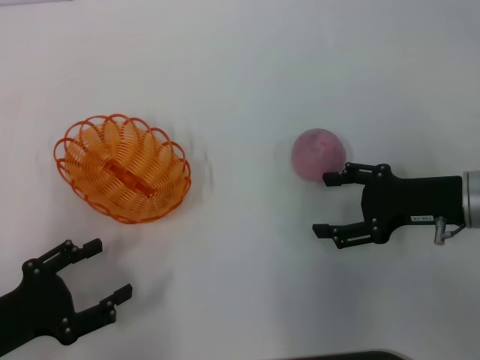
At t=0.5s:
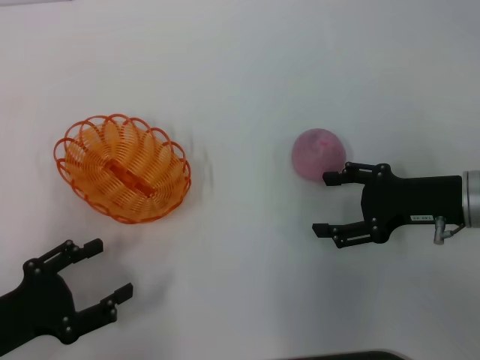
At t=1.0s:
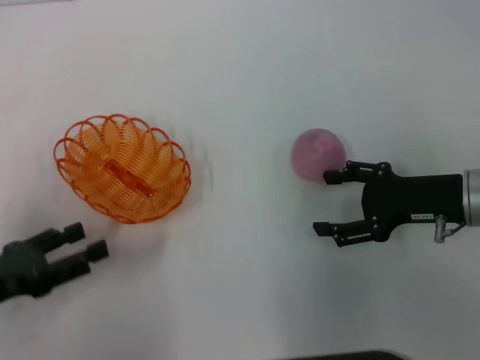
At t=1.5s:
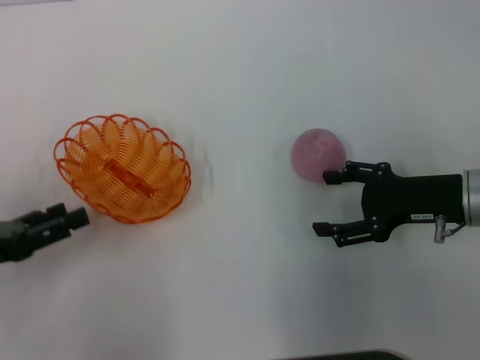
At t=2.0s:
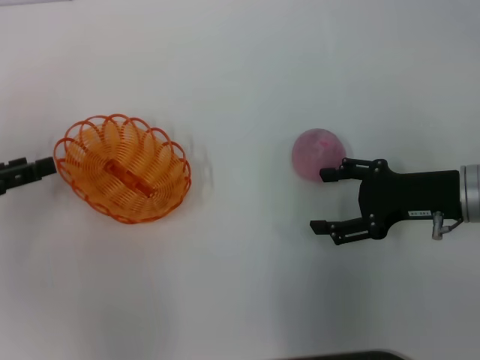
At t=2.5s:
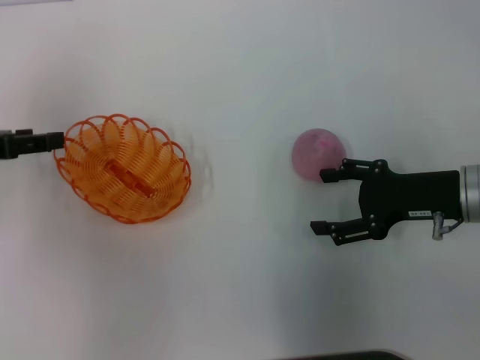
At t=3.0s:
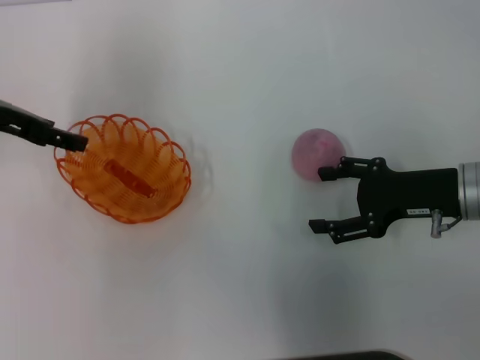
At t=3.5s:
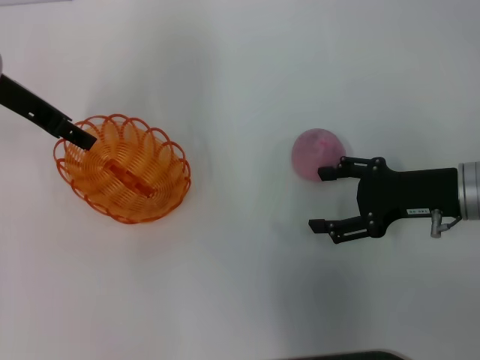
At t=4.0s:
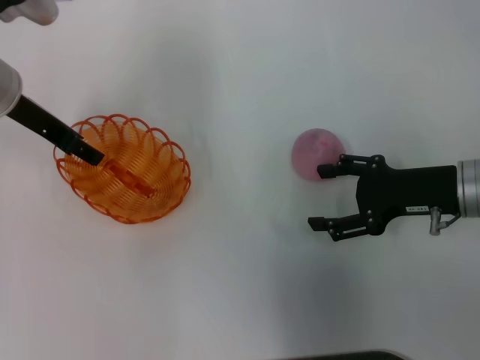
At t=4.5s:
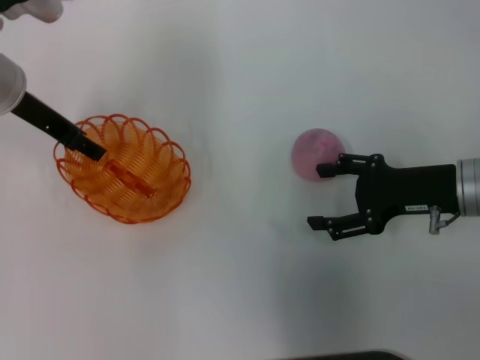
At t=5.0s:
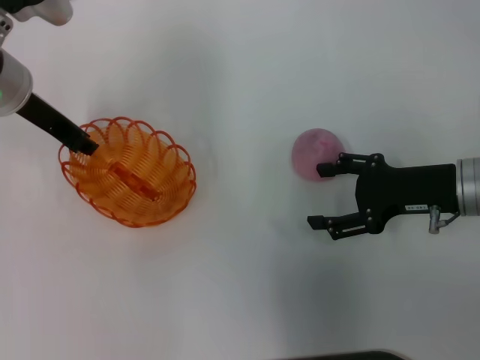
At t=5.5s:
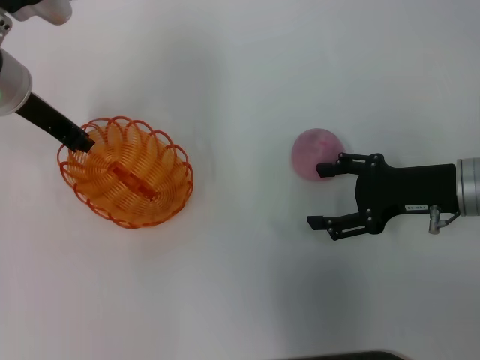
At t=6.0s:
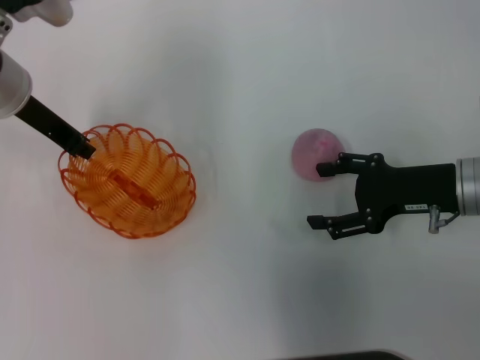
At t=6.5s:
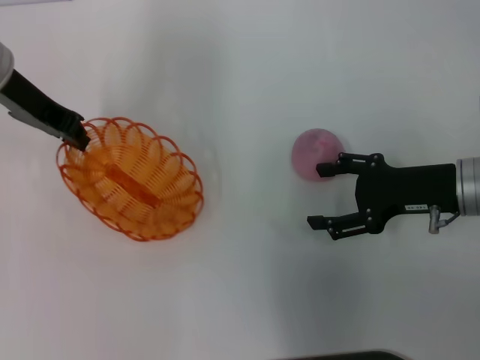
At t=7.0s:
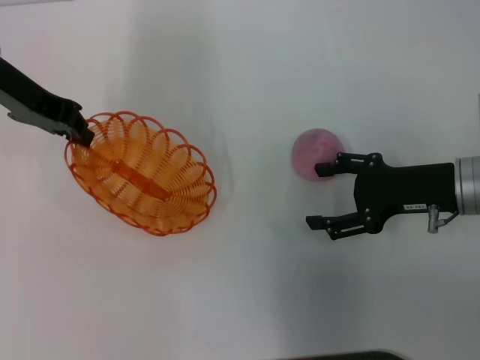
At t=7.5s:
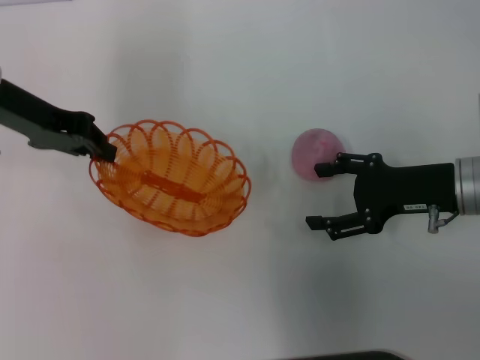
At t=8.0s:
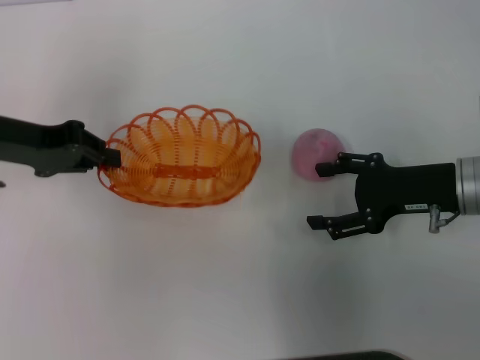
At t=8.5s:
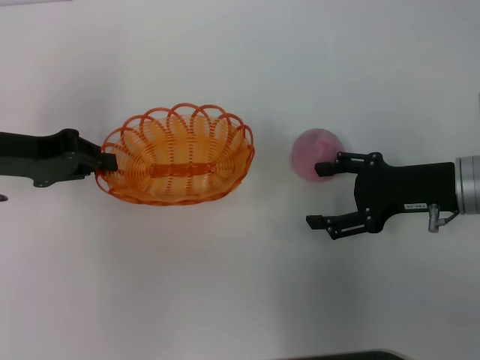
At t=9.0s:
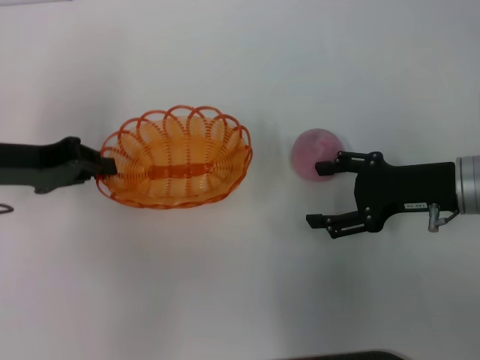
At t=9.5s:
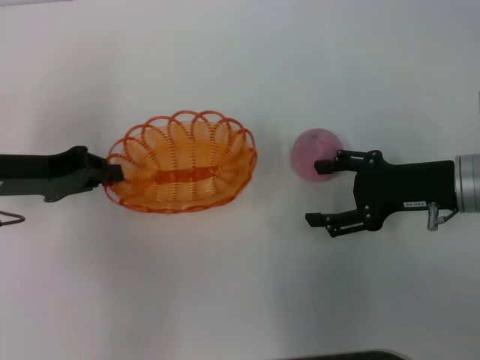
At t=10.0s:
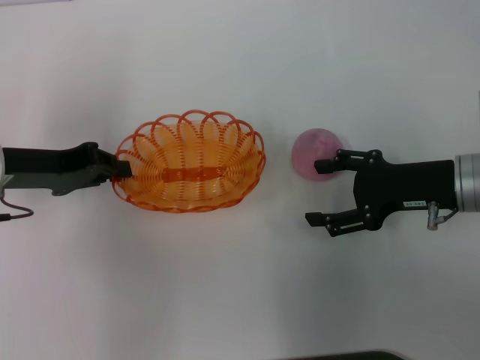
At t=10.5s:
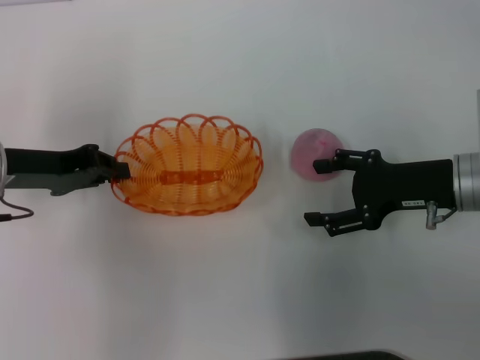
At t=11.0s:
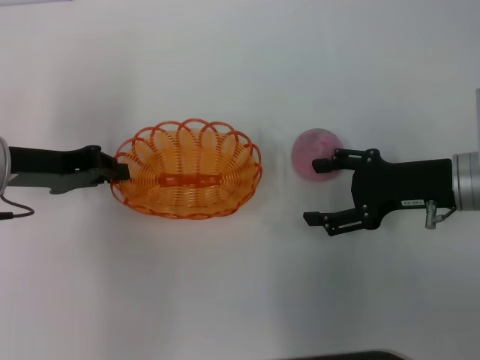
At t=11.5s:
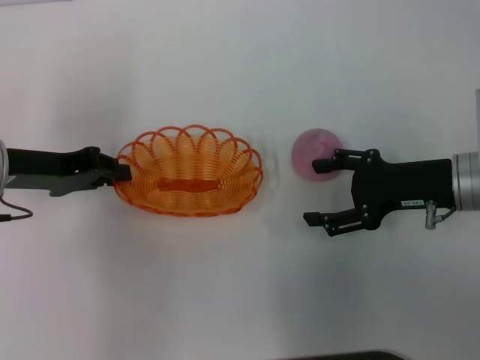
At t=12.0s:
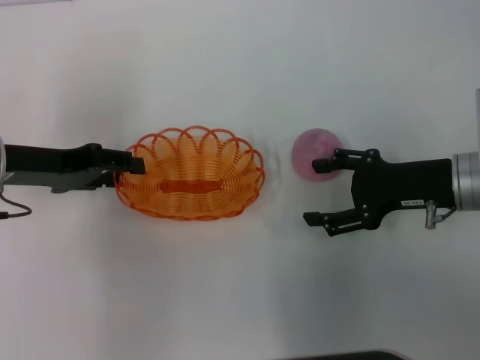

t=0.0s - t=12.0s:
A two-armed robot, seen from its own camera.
Step, t=0.0s - t=7.0s: Pick up the basket with the left gripper.
t=0.0s - t=2.0s: The left gripper travels forward, upward and to the left by some 15 cm.
t=2.0s - t=4.0s: The left gripper heads forward, to the right and upward, covering some 20 cm.
t=4.0s - t=6.0s: The left gripper closes.
t=6.0s - t=8.0s: The left gripper travels to the left by roughly 5 cm.
t=8.0s - t=10.0s: The grippers move only a little.
t=10.0s - t=12.0s: Both grippers stay about where they are.

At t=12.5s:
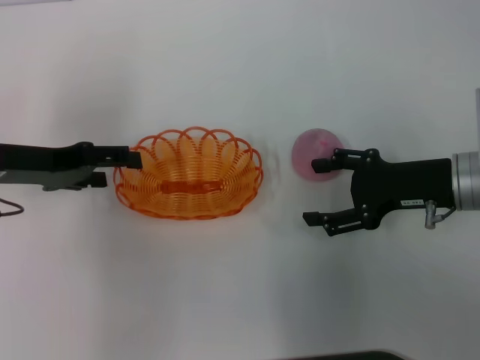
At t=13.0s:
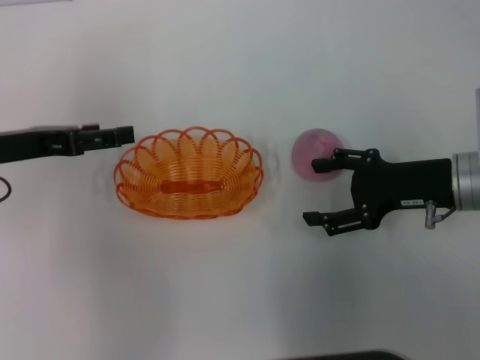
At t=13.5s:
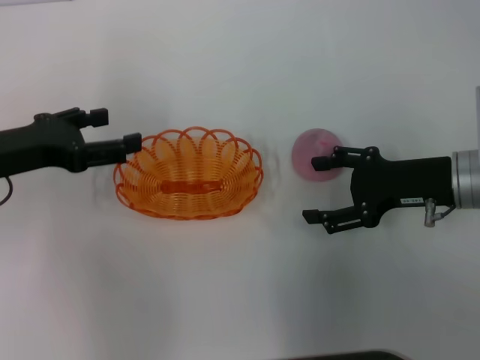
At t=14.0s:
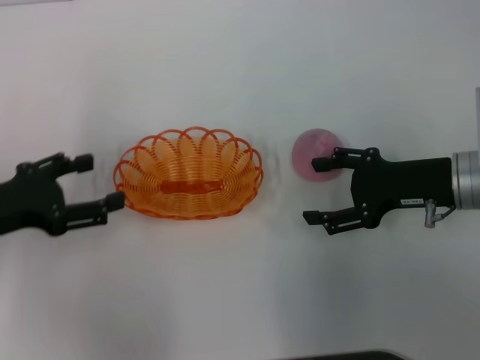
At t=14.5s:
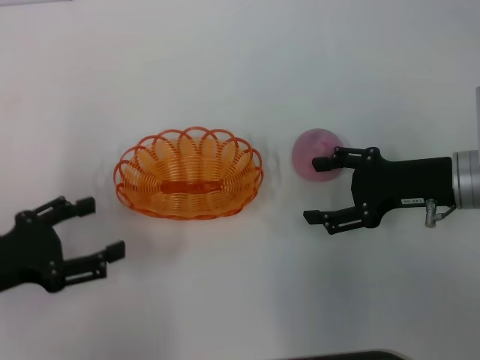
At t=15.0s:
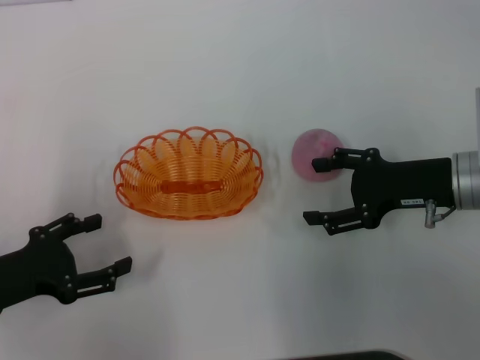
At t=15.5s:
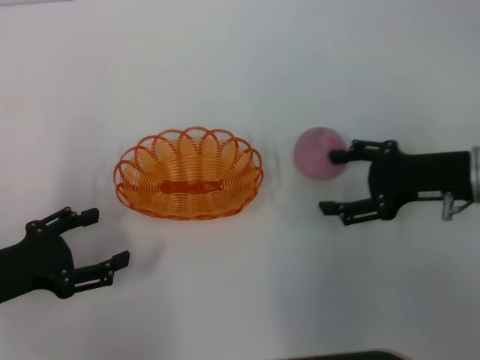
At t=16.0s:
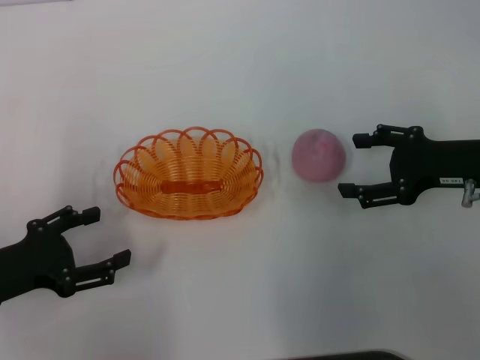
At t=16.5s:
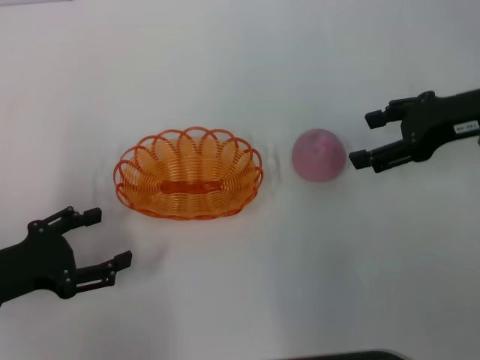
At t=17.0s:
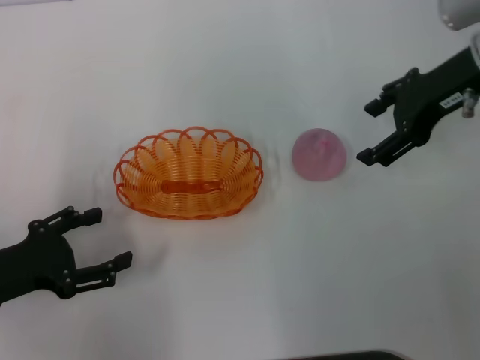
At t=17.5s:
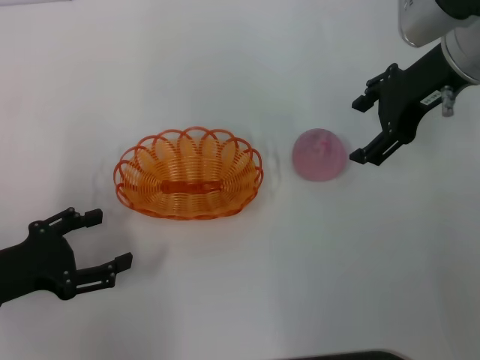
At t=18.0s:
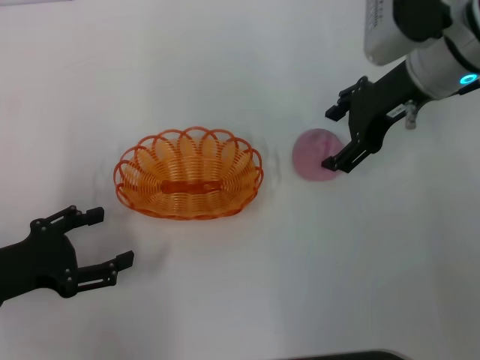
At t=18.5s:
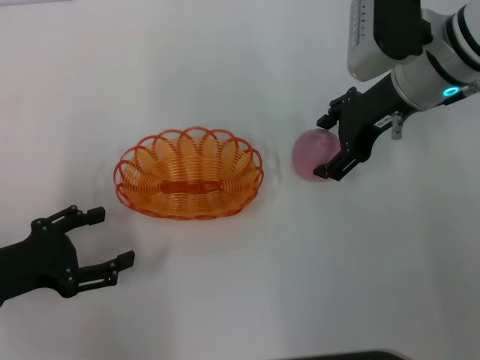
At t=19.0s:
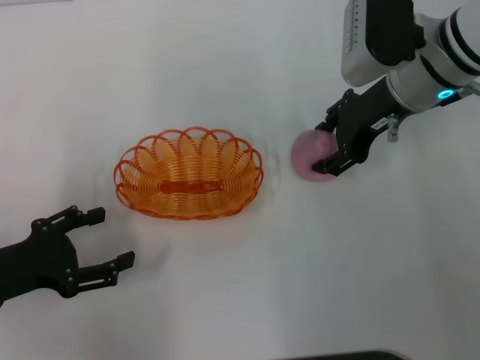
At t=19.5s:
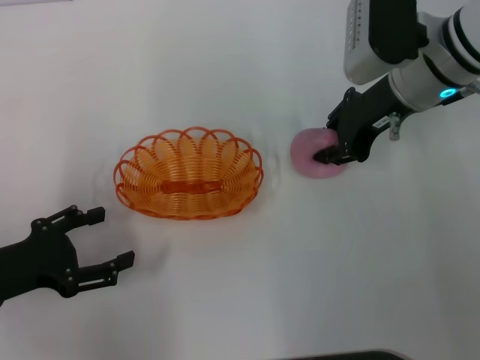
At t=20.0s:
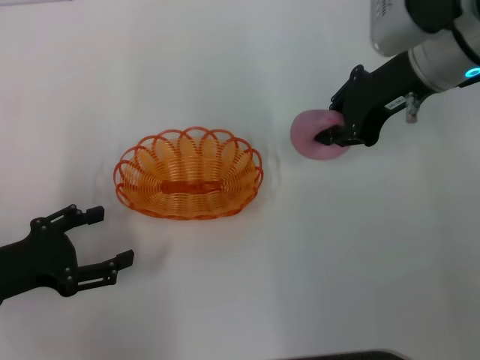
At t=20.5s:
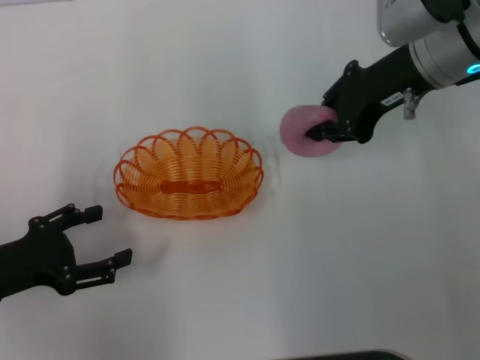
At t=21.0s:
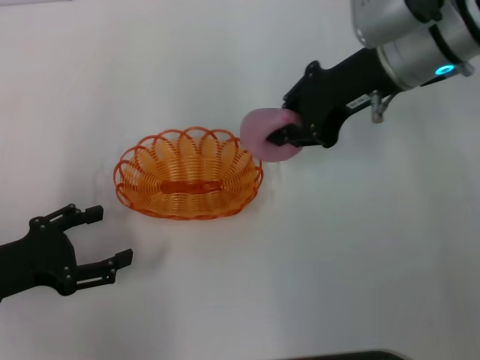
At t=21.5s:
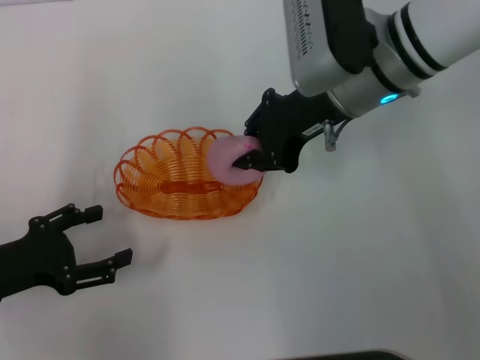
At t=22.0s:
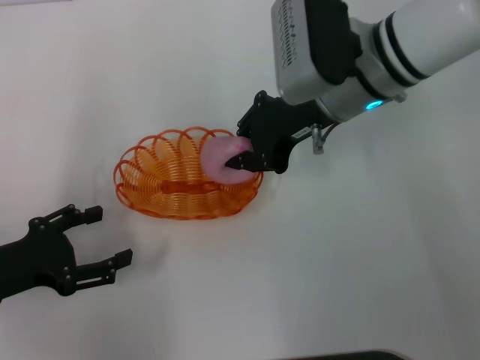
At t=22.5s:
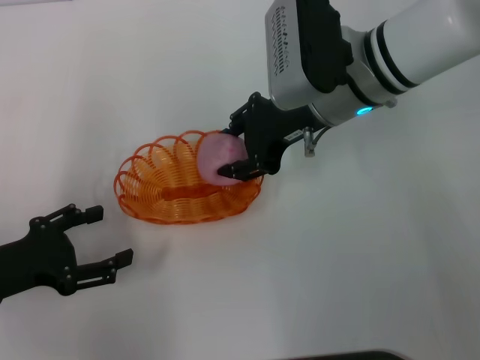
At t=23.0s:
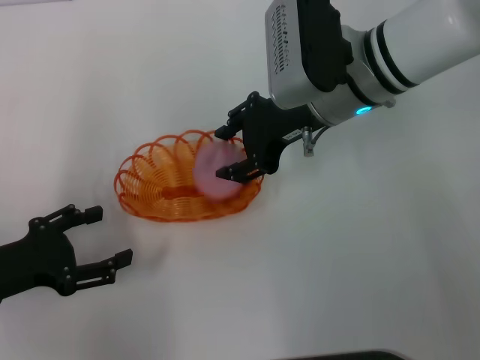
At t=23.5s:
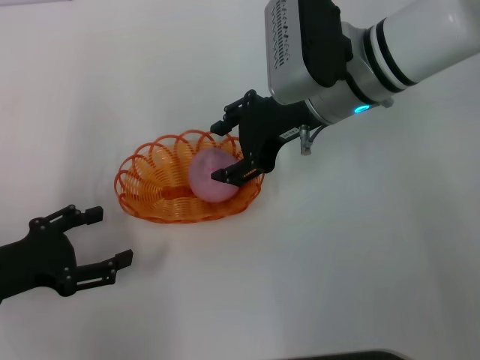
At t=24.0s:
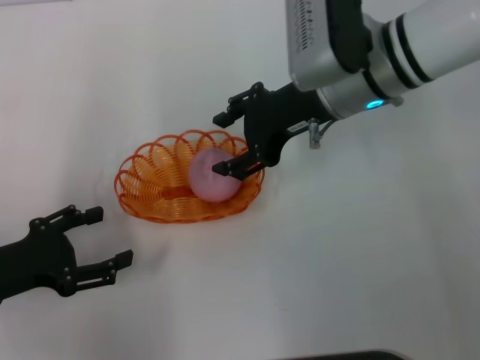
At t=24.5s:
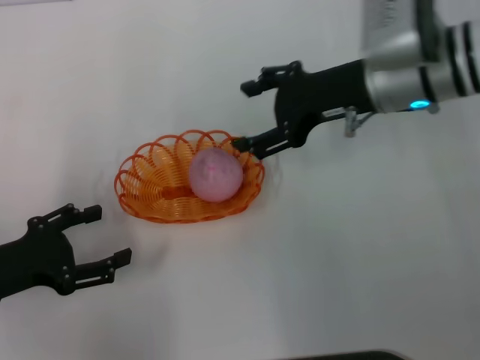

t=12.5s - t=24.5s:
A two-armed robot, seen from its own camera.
Step, t=14.0s - t=20.0s: Pick up the peach with the right gripper.
t=12.5s - t=14.5s: The left gripper heads backward, covering roughly 10 cm.
t=14.5s - t=16.5s: The right gripper heads upward, covering about 10 cm.
t=16.5s - t=18.5s: The right gripper heads to the left and forward, covering approximately 10 cm.
t=18.5s - t=20.5s: The right gripper closes up.
t=20.5s - t=22.5s: The right gripper goes roughly 10 cm to the left.
t=22.5s - t=24.5s: The right gripper goes approximately 5 cm to the right, and opens up.

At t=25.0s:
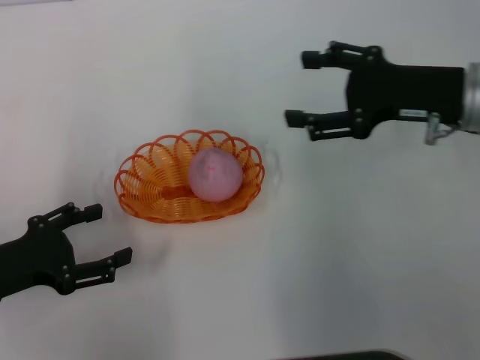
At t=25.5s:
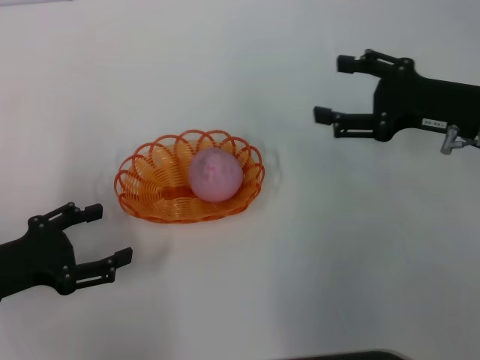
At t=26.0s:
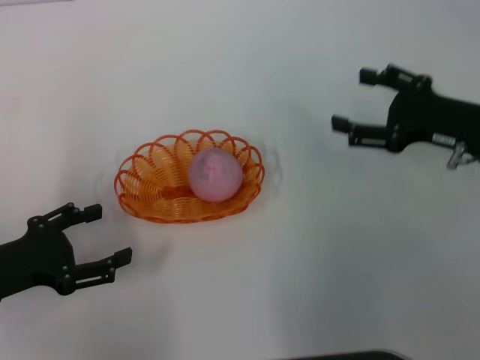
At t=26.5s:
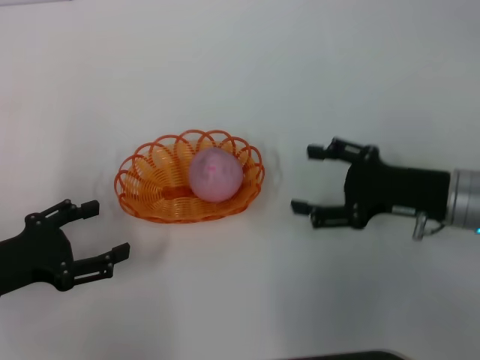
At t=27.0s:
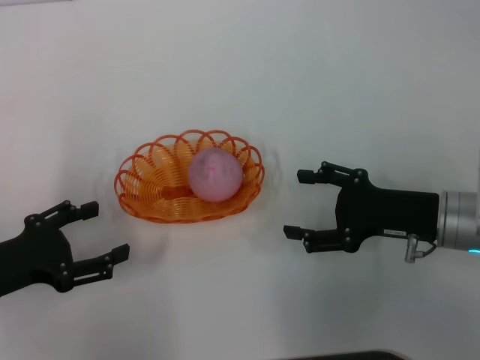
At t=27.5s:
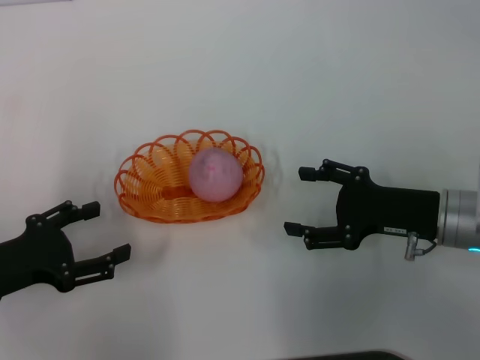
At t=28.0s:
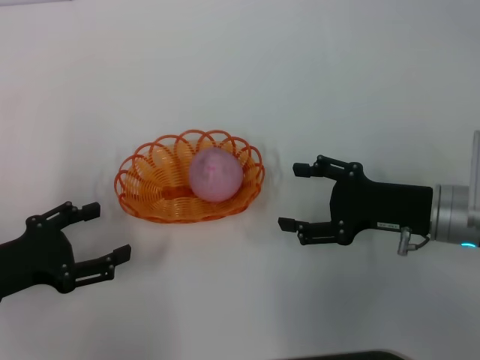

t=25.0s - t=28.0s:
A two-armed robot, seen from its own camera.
t=25.0s - t=26.5s: The right gripper is displaced downward and backward by about 10 cm.
t=26.5s - t=28.0s: The grippers stay close to where they were, moving slightly.
